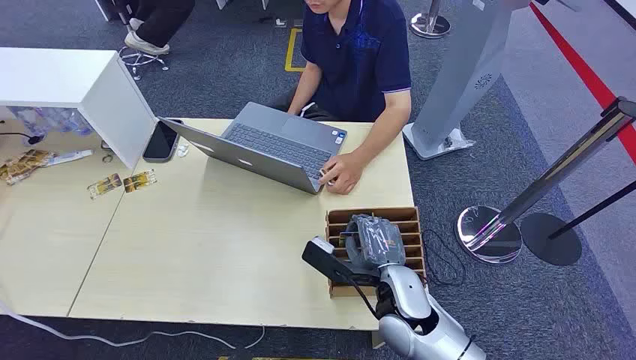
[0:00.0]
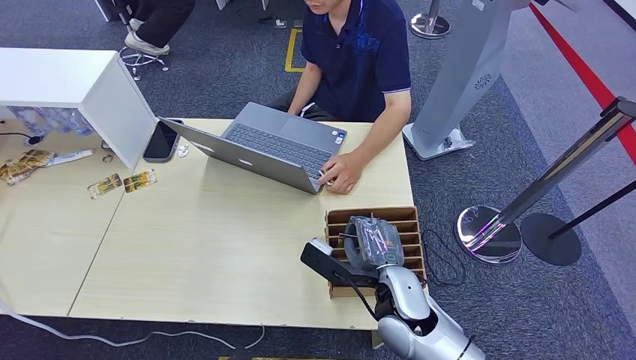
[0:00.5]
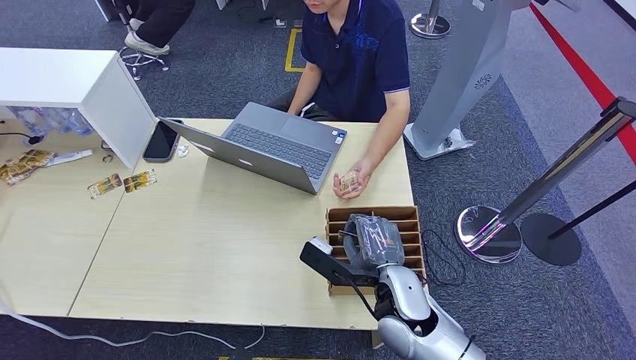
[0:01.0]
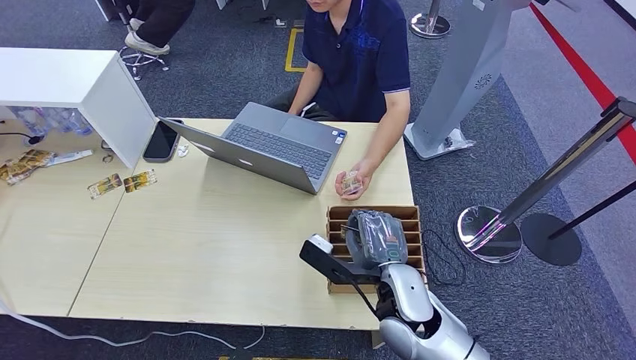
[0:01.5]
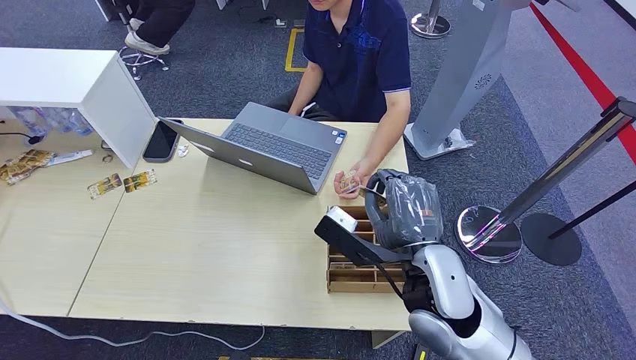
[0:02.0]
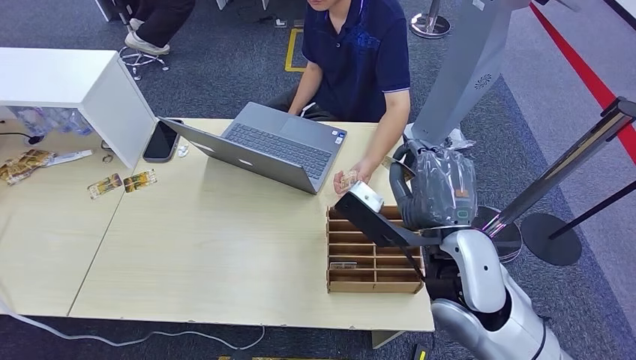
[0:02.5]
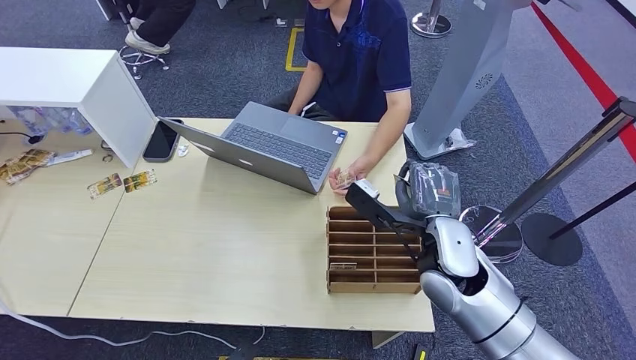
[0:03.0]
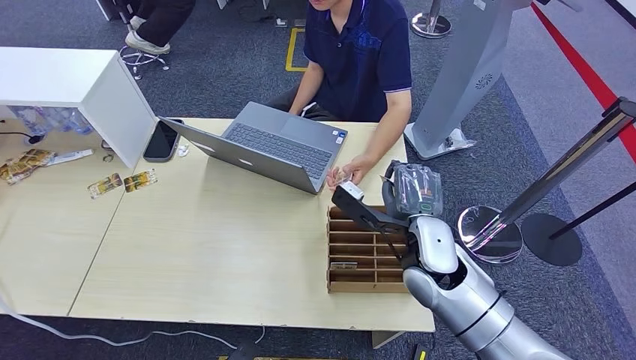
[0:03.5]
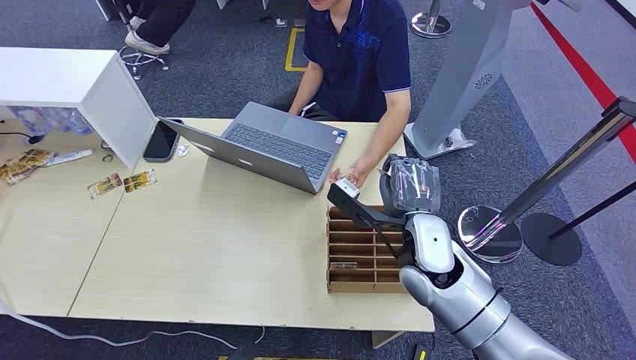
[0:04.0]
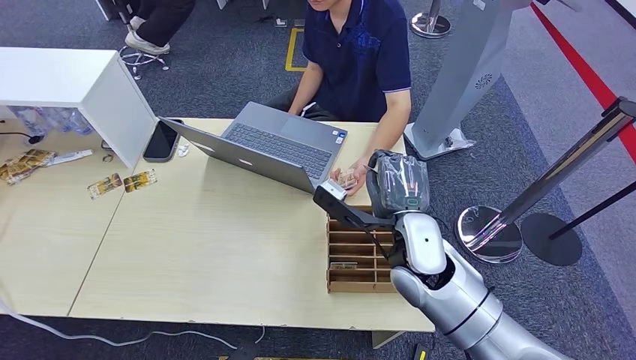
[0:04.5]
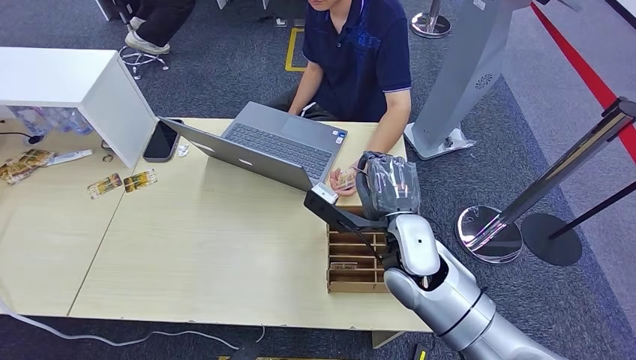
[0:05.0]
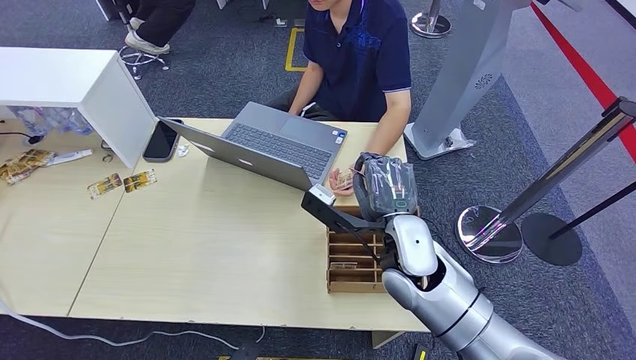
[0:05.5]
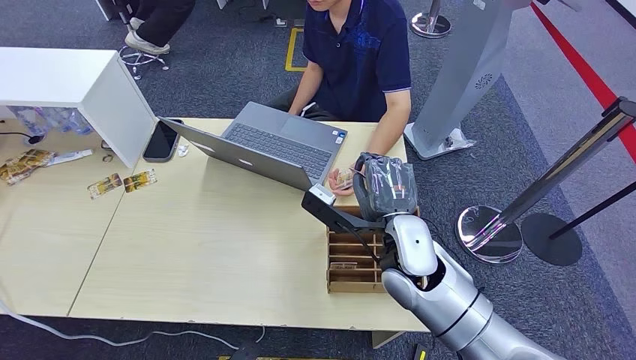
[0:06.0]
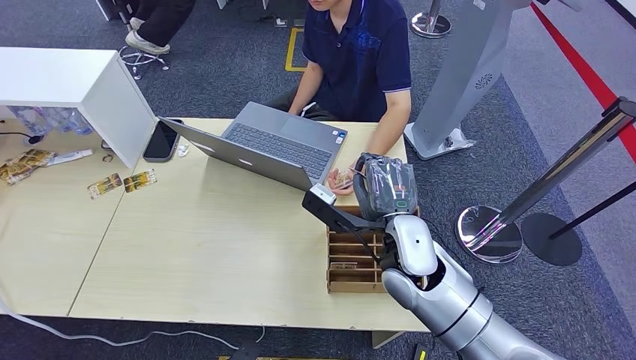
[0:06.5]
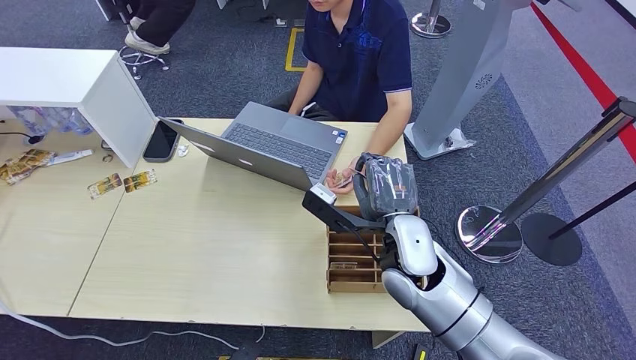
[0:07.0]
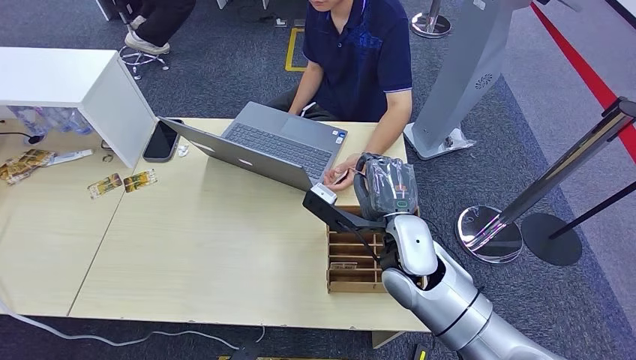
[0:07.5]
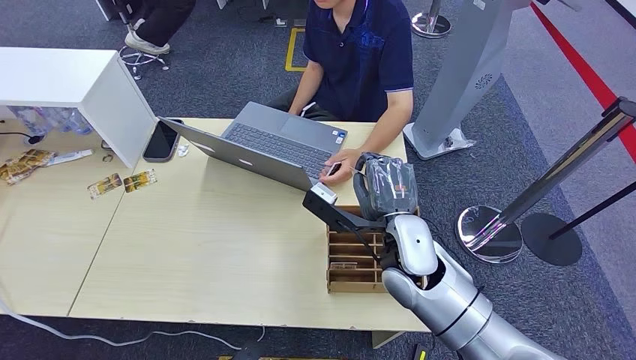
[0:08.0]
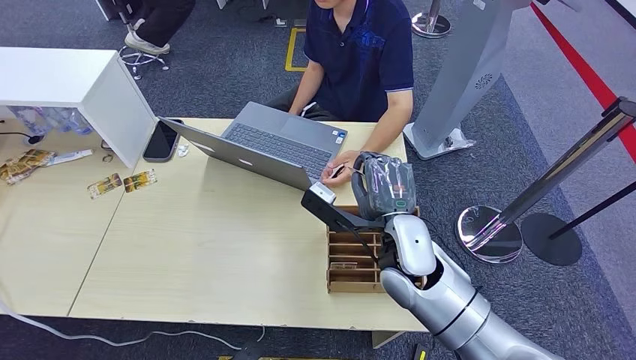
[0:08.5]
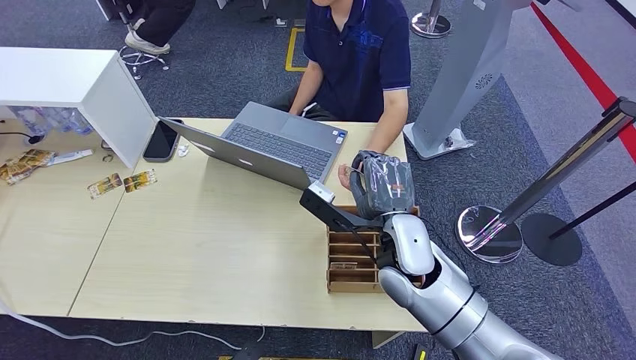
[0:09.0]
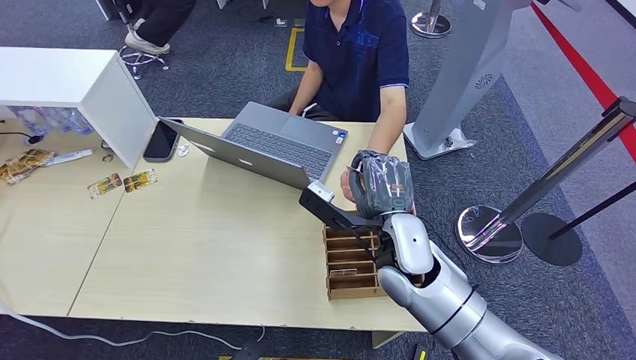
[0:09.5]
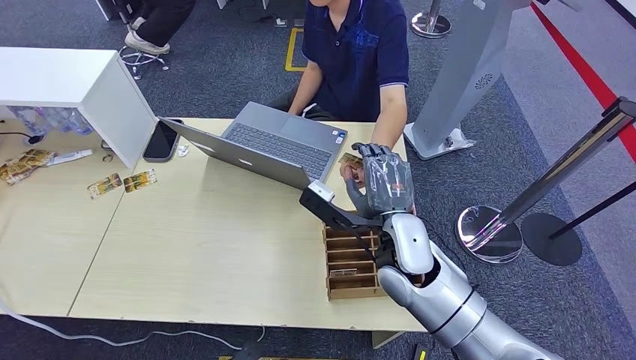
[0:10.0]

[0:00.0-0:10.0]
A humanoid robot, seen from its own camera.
Step, 0:00.0 to 0:01.5: Pick up the key card from the card box.
0:02.0 to 0:04.0: The right hand goes some 5 cm forward.
0:04.0 to 0:06.0: The hands make only small movements.
0:06.0 to 0:10.0: Both hands stay about where they are.
